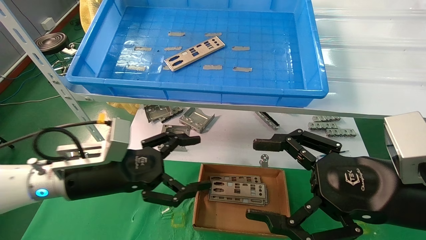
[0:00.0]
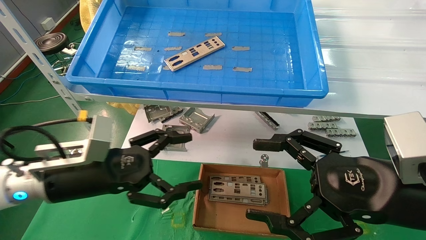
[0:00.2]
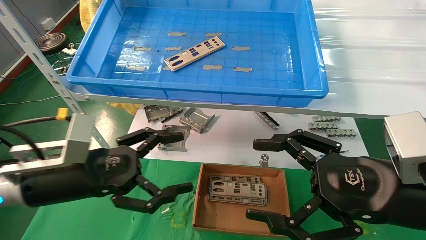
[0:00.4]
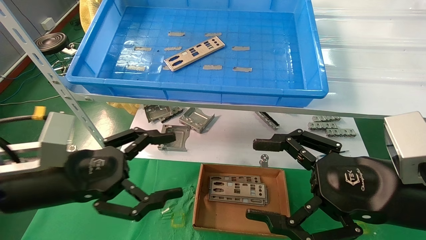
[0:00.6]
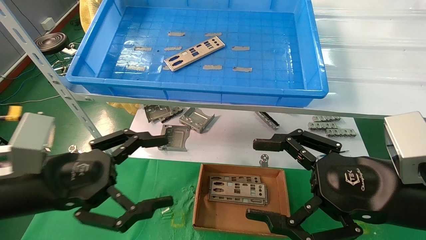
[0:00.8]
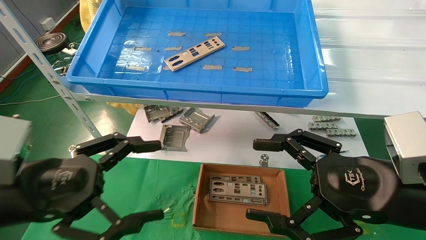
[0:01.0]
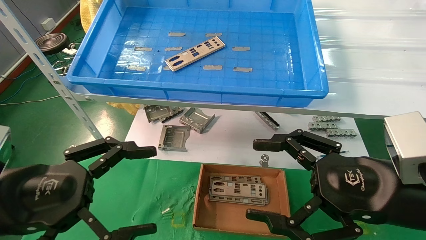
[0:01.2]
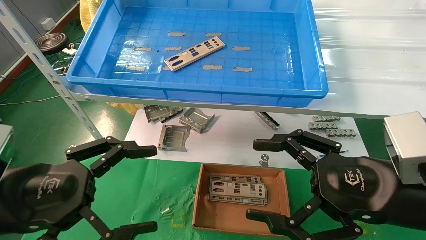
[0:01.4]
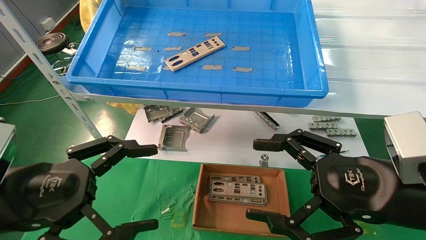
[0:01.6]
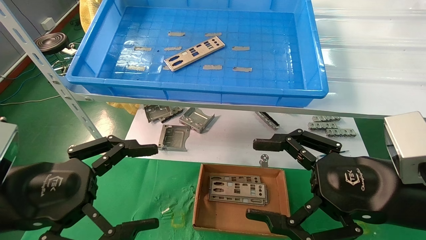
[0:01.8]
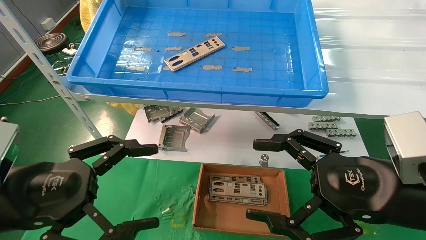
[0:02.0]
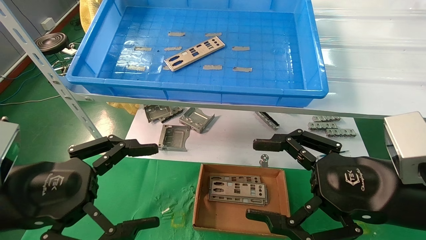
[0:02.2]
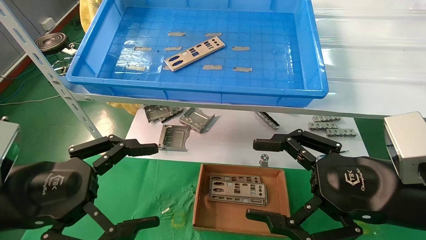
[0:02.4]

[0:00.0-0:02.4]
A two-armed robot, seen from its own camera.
Task of the whole recording: pick up the parts on the tray and put them in the cardboard box.
0:00.0 to 0:01.2: The left gripper heads backward and to the left, covering about 15 cm.
0:01.2 to 0:02.4: Both grippers stay put.
